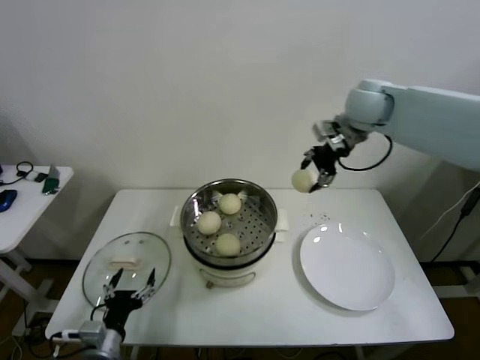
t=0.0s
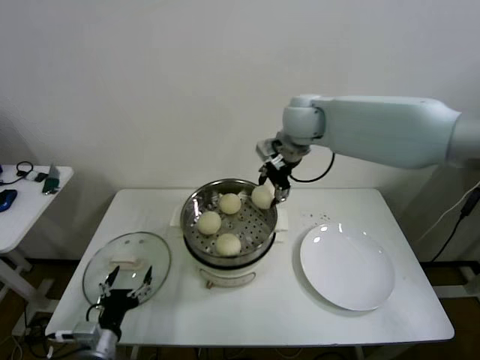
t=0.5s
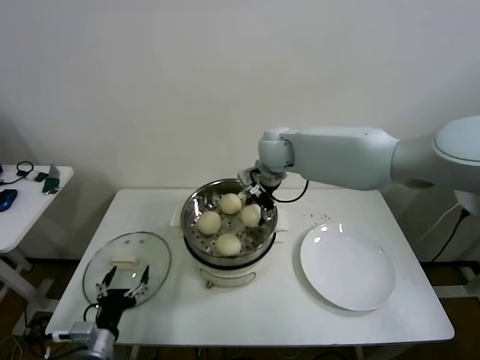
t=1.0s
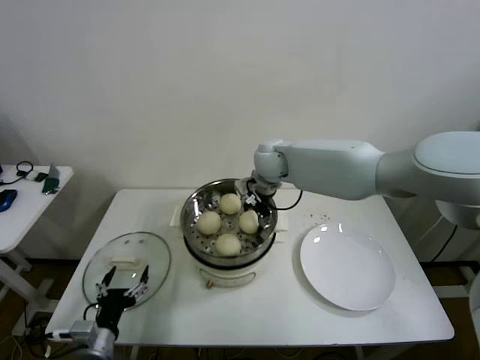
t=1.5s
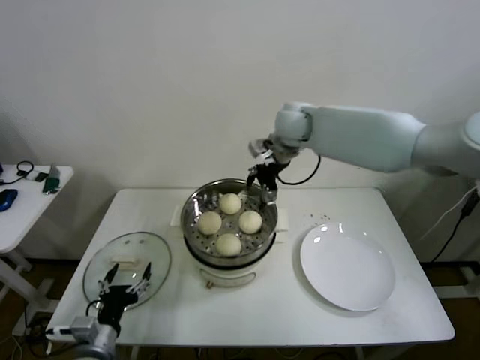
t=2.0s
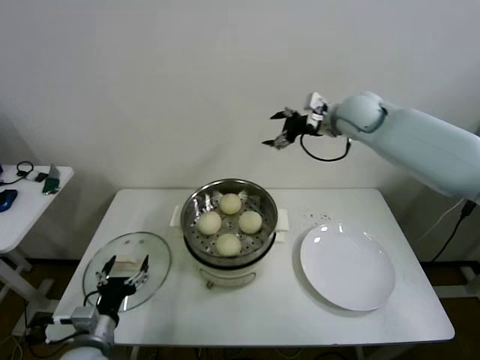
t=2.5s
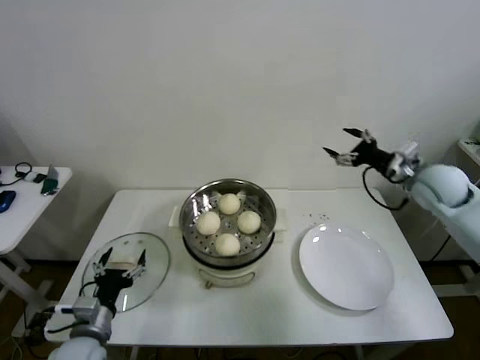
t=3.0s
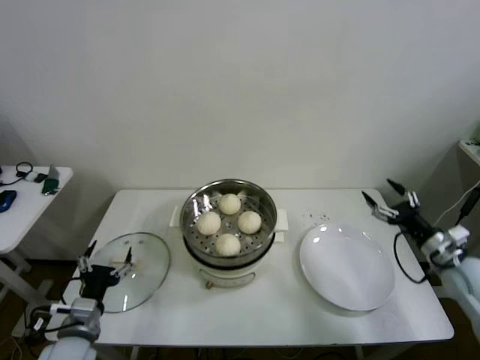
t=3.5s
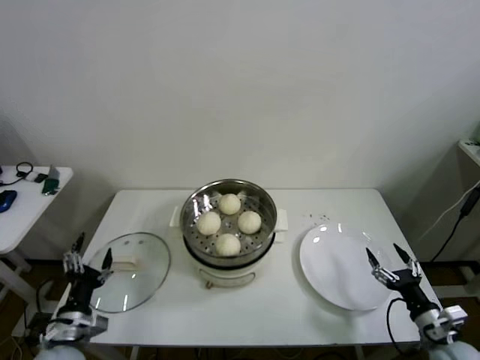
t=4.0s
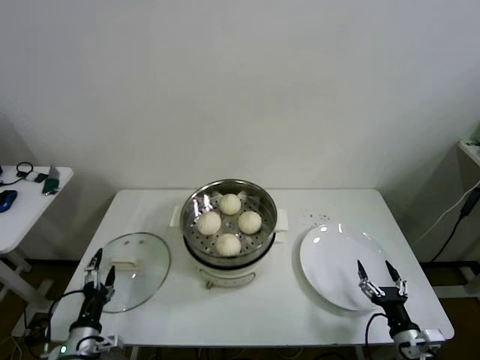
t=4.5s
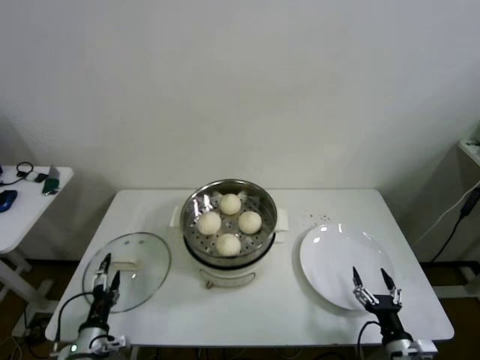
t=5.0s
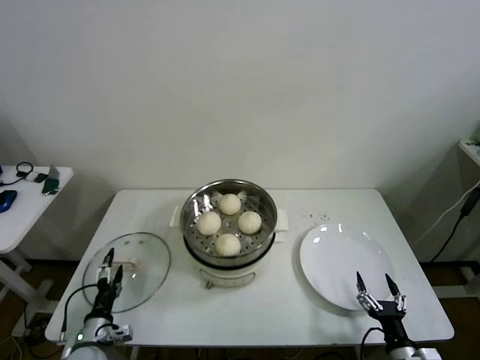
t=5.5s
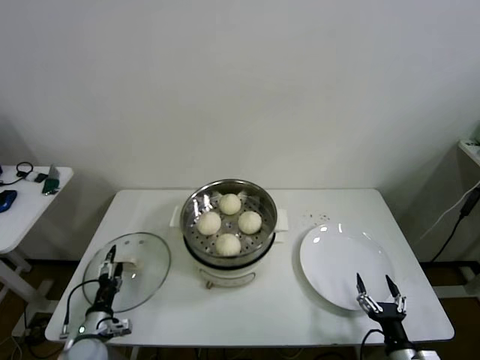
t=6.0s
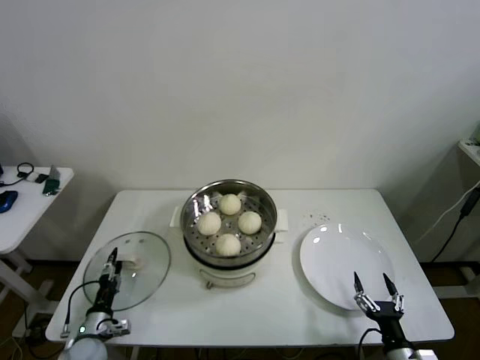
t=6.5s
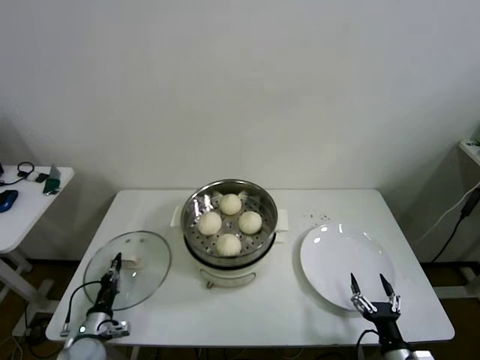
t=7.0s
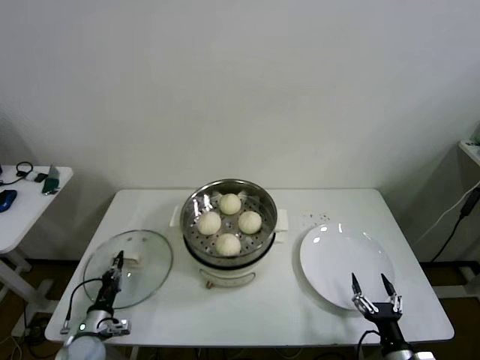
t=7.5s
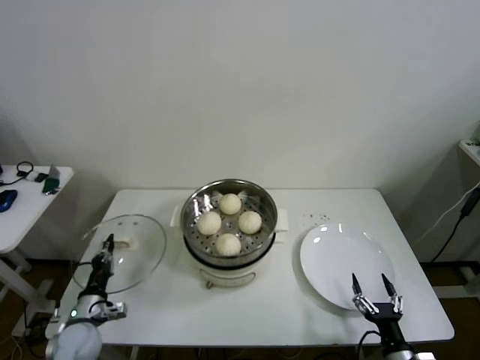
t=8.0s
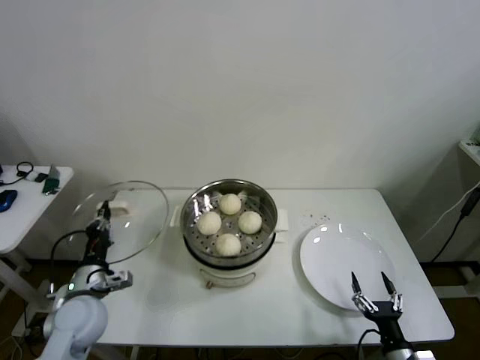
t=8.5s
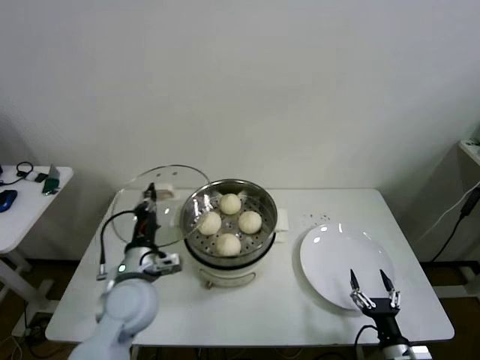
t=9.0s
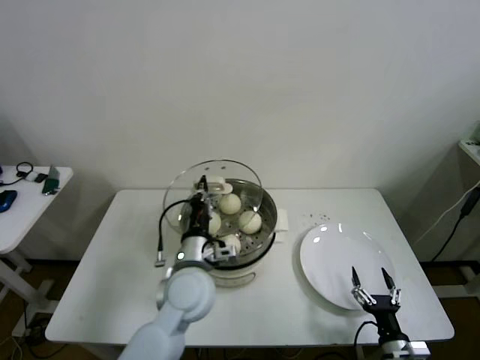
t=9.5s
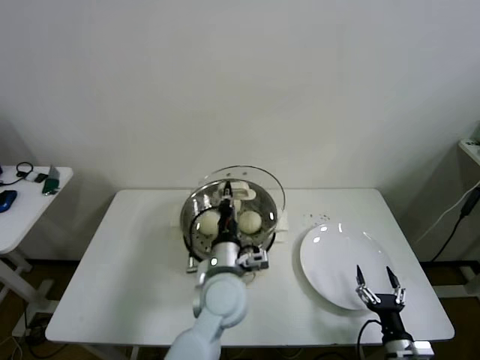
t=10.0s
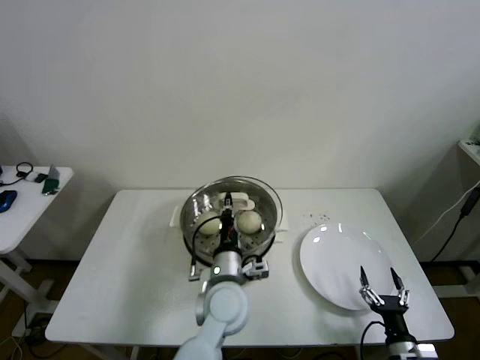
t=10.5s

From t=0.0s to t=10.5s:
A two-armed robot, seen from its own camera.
Step, from t=2.0s to t=6.5s: Grasp the pot lid with left gripper.
From t=0.0s to t=2.0s: The right gripper heads to the left and downward, covering some 15 cm, and opens.
From t=2.0s to t=4.0s: The left gripper is displaced to the left by roughly 5 cm; the right gripper shifts about 60 cm backward, downward and to the right.
From t=4.0s to t=6.5s: The right gripper shifts some 10 cm to the left, backward and downward, while the left gripper shifts approximately 15 cm downward.
From t=6.5s to t=8.5s: The left gripper is displaced upward by about 20 cm, and closes up.
From t=8.5s to t=10.5s: The left gripper travels to the right by roughly 30 cm.

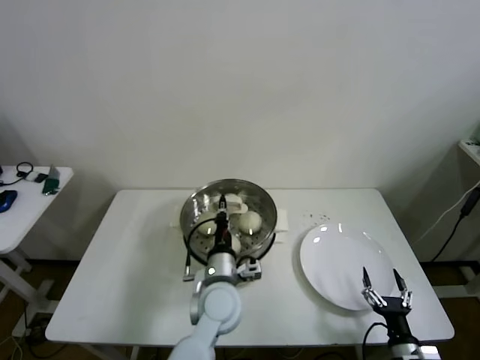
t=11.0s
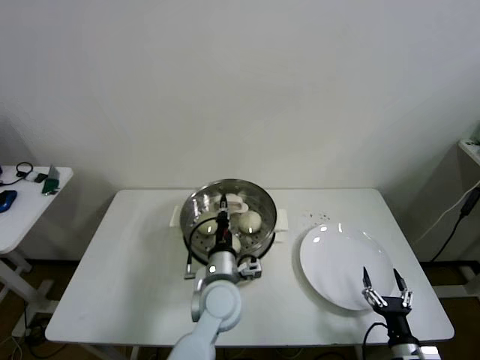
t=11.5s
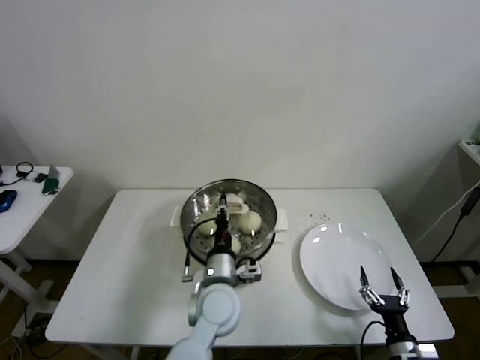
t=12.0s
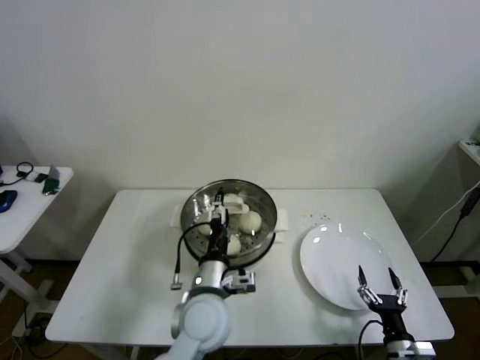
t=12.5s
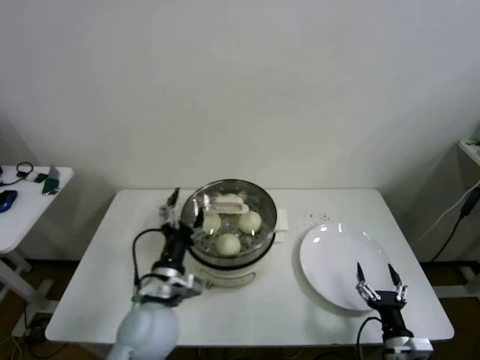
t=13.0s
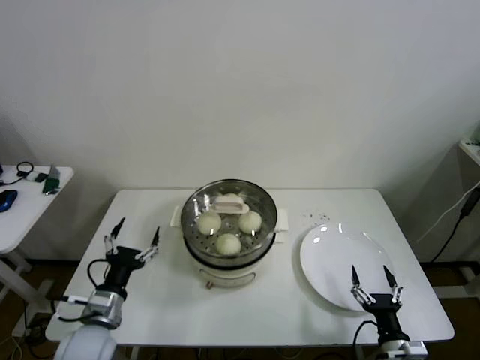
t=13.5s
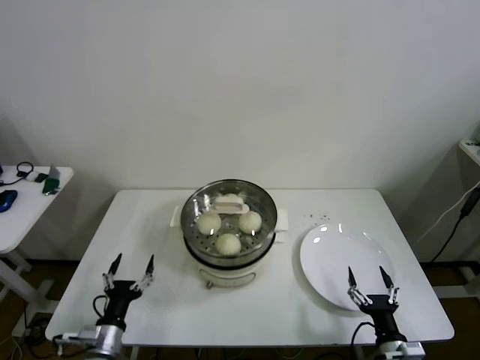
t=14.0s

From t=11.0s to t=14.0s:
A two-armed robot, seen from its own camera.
From t=11.0s to t=12.5s: The left gripper opens up.
From t=12.5s to t=14.0s: The left gripper is displaced to the left and downward by approximately 30 cm.
